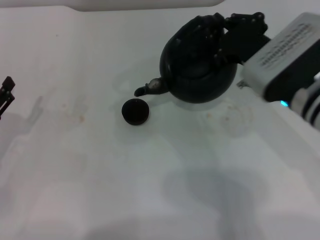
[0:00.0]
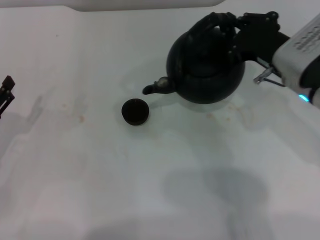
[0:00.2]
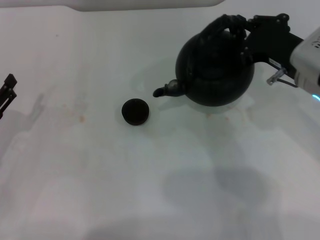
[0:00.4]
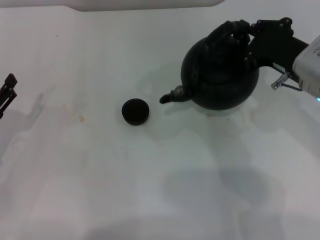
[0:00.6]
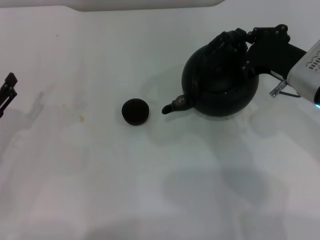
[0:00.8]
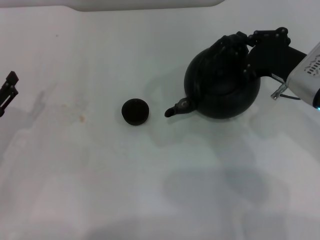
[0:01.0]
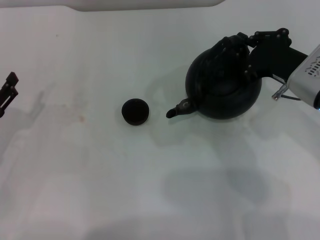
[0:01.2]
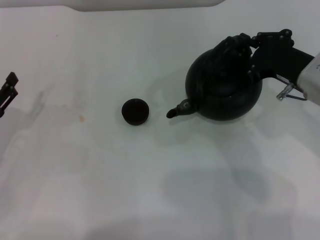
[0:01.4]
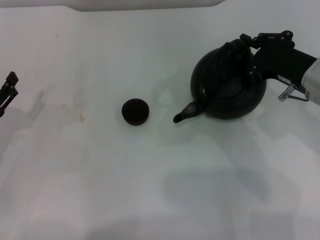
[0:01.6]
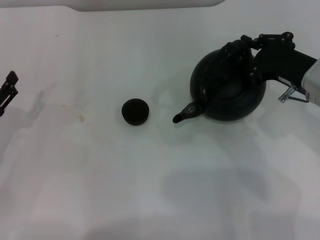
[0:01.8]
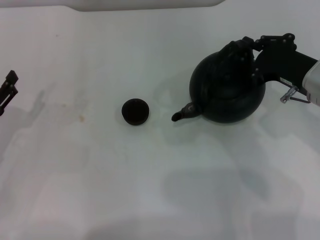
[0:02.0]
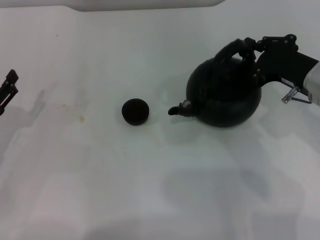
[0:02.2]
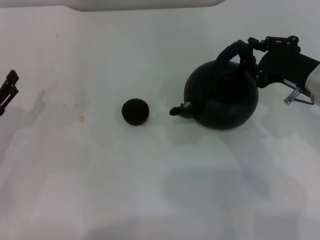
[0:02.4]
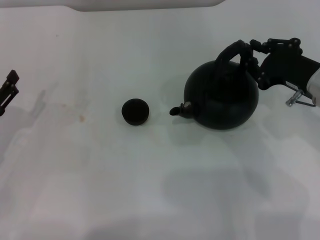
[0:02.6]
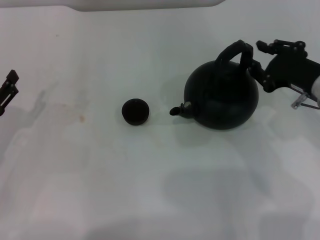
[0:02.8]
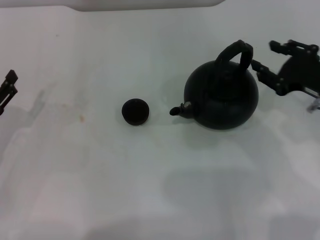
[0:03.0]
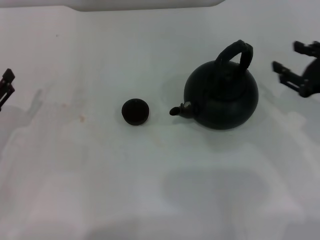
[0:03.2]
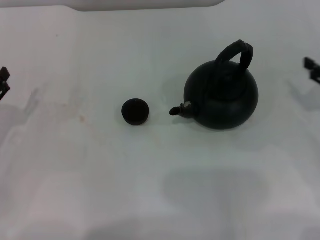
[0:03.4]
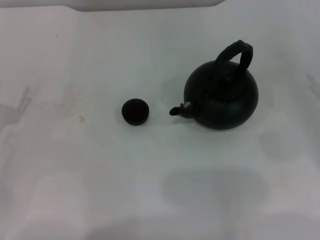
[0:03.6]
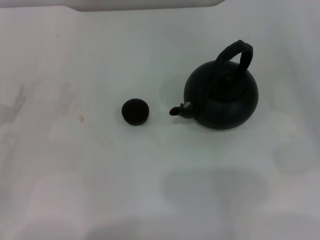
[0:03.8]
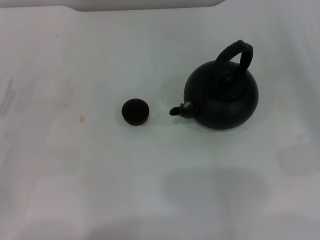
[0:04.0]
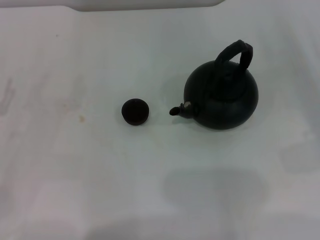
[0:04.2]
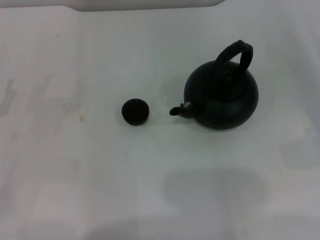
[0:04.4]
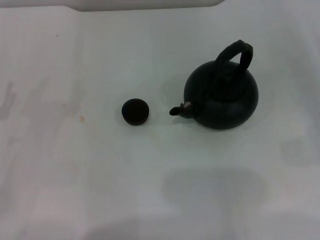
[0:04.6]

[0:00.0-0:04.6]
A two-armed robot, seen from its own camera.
Task of the whole recording: Grasp the handle of the teapot with one hand and pour tea into the teacup.
Step, 0:00.2 to 0:03.2: Put down the teapot with the right gripper.
0:00.0 to 0:01.6: The right gripper moves to the right, about 5 cm.
0:01.6 to 0:03.0: The right gripper opens its fingers.
0:03.0 to 0:04.6: The right gripper moves to the right, some 15 cm.
